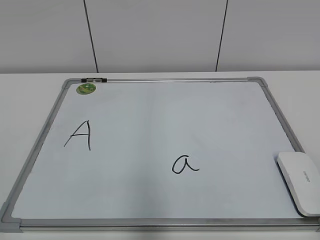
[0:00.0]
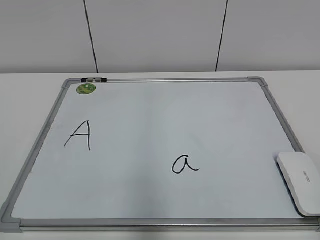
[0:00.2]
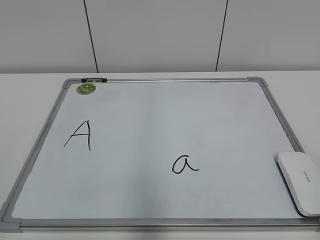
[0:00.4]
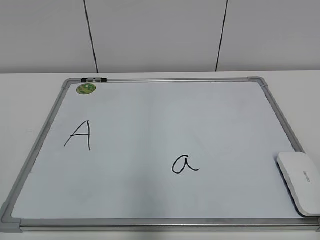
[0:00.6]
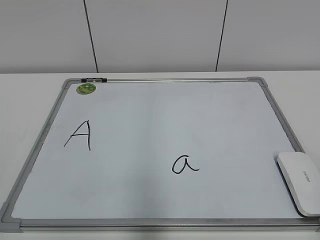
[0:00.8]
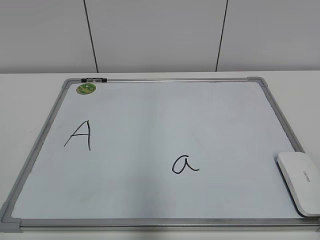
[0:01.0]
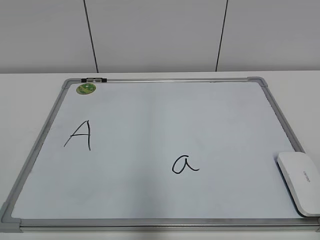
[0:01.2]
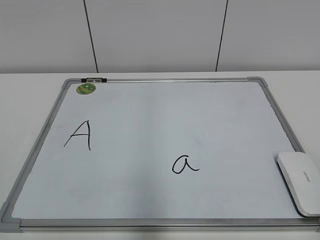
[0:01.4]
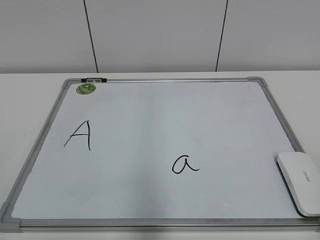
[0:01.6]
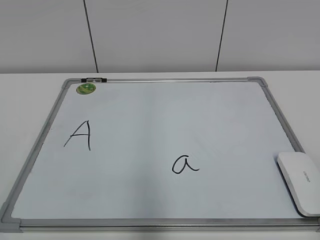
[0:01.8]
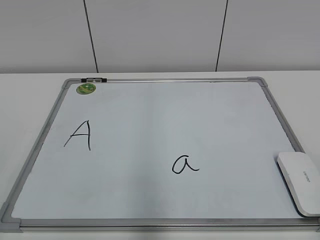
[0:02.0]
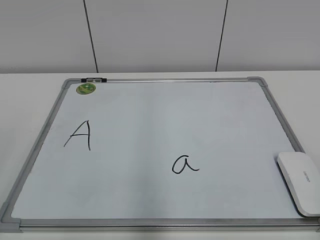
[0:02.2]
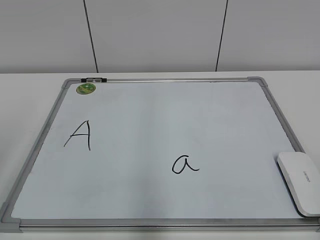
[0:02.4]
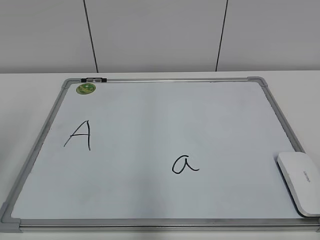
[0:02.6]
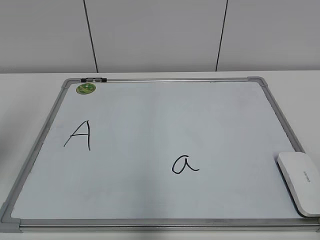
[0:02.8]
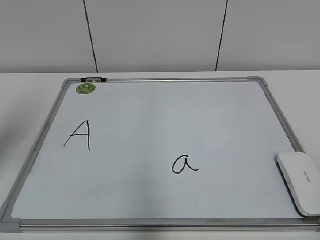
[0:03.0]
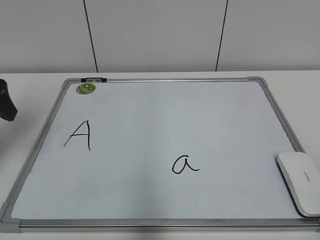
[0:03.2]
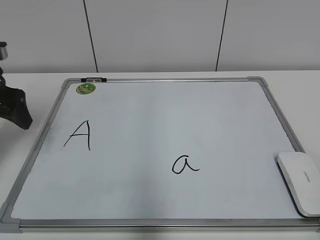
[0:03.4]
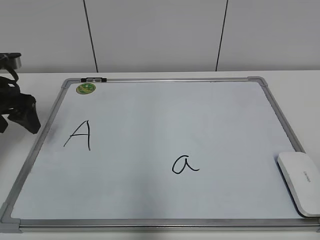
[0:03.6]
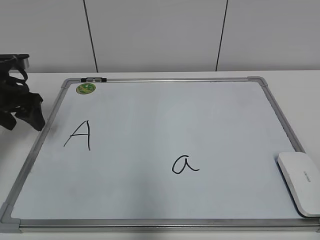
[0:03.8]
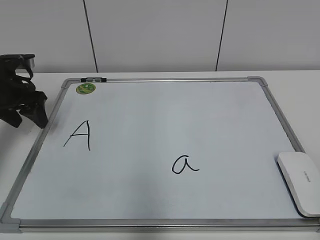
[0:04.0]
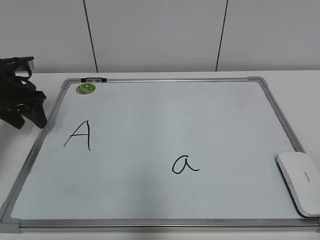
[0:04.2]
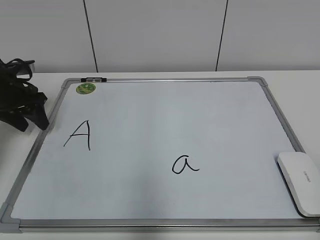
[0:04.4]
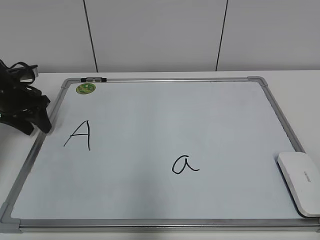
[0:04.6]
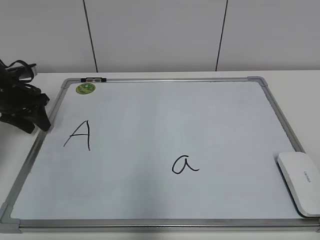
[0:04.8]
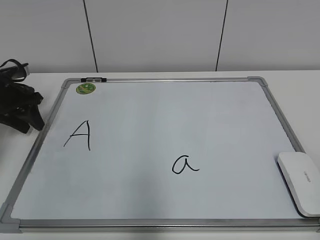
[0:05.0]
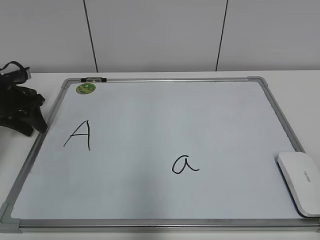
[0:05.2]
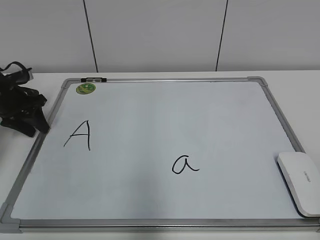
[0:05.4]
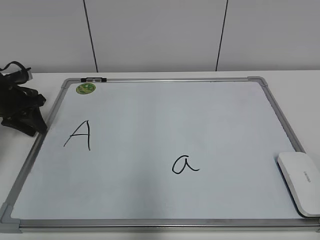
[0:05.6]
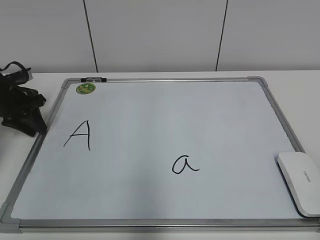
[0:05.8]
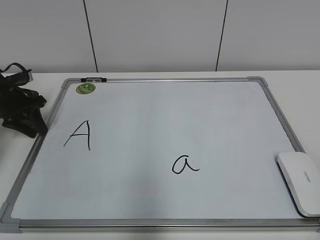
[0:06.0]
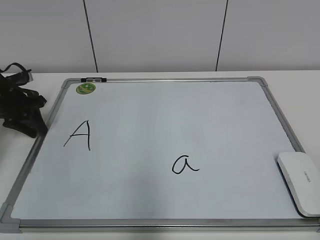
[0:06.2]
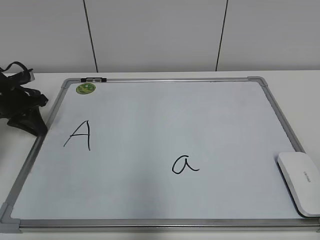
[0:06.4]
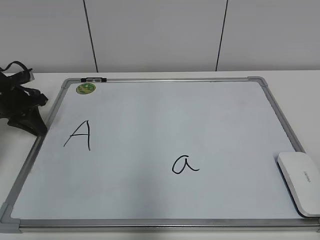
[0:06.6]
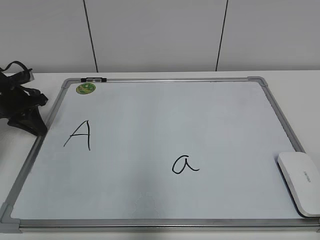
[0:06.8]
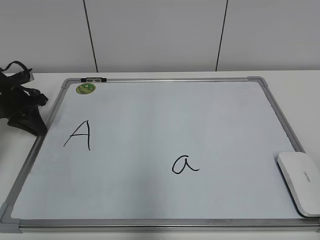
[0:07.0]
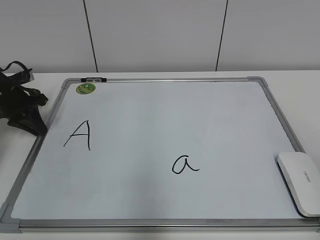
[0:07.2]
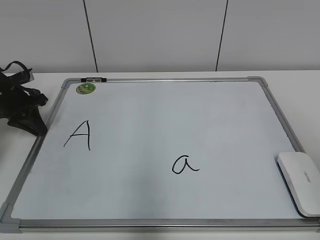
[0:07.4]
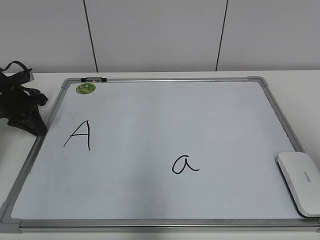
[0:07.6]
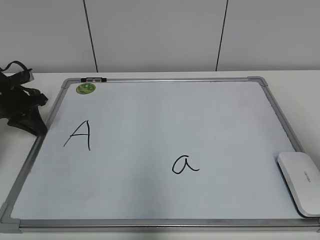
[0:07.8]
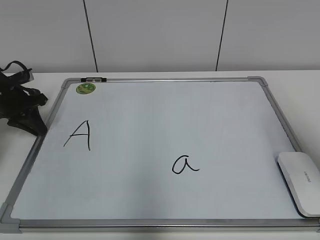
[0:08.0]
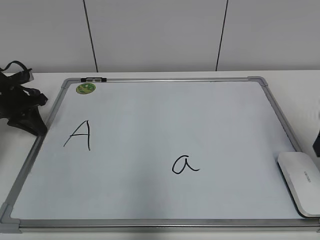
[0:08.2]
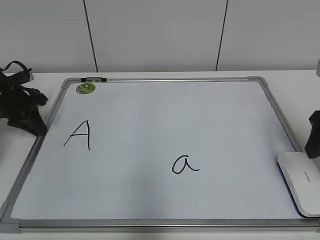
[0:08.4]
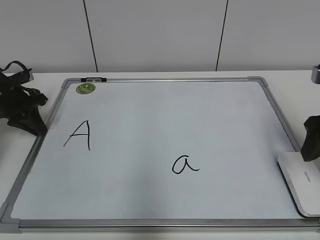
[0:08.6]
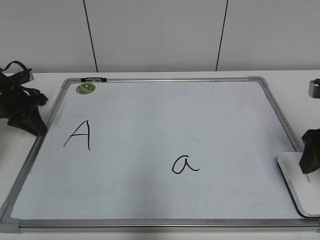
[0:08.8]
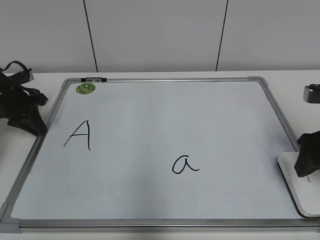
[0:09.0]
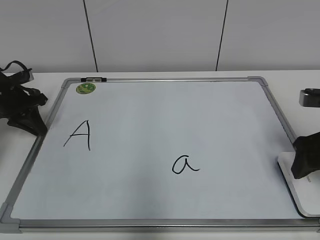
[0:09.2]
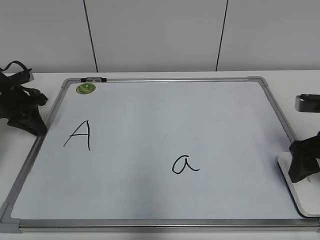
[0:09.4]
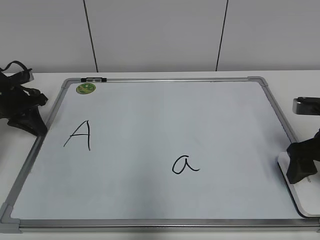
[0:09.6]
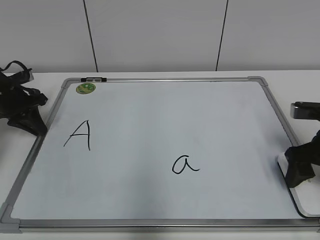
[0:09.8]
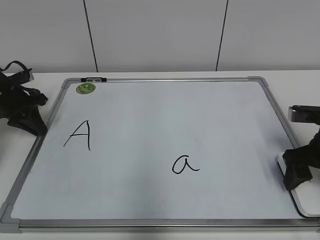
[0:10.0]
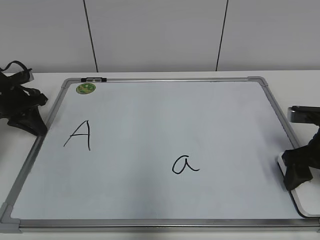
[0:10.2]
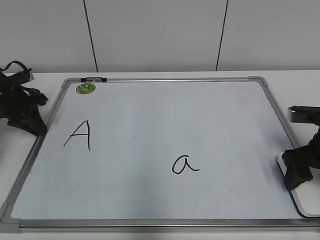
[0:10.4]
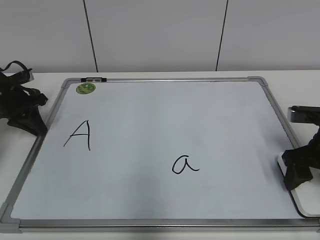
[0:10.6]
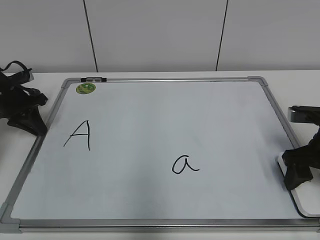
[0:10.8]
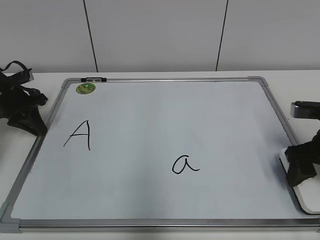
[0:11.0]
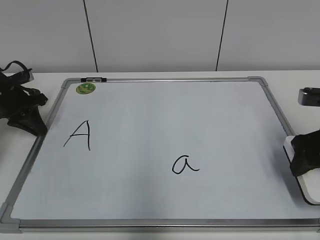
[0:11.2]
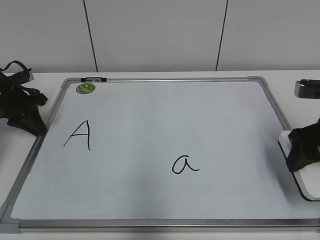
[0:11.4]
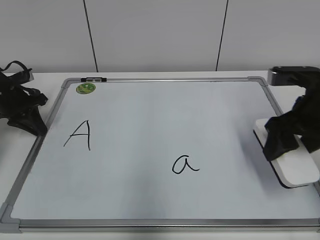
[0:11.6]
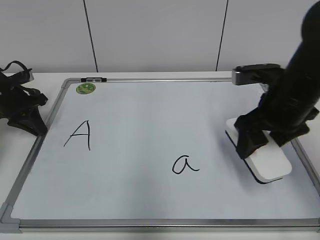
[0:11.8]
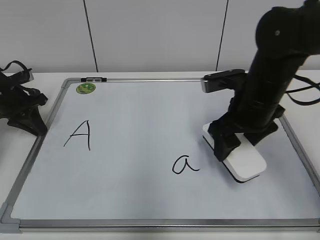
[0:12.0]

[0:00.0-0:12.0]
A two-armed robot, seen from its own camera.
Task of the whole recording: pick up the eraser on the blackboard and erase the letter "a".
Step, 0:00.0 to 0:07.8: Hold the drawing board steady with your left hand.
Step, 0:08.2 to 0:10.6: Grab the eraser with your right hand.
0:01.6 to 0:03.0: The left gripper heads forward, covering approximately 25 cm, and opens its fingers.
0:03.0 to 0:04.4: The left gripper is displaced forward and downward by some 20 cm.
0:04.4 to 0:06.0: There are only small adjustments of the grippers.
0:07.6 to 0:09.0: The right gripper is displaced downward and forward by some 20 cm.
0:09.0 to 0:10.4: The right gripper goes some 5 cm downward.
0:10.4 to 0:12.0: The right gripper moves to the left and upward, approximately 15 cm.

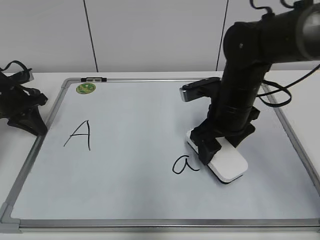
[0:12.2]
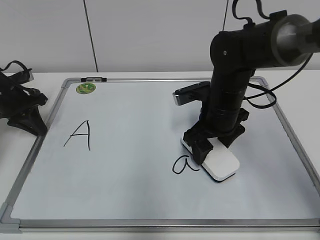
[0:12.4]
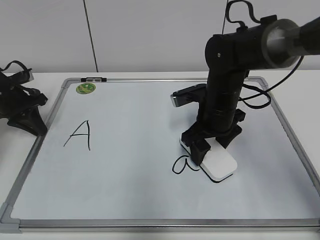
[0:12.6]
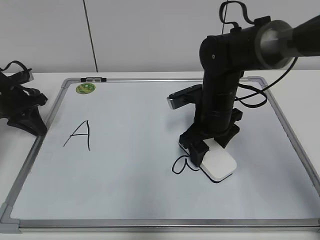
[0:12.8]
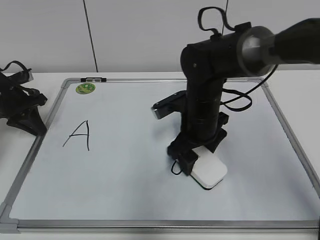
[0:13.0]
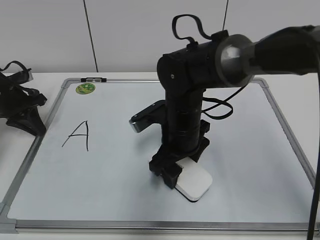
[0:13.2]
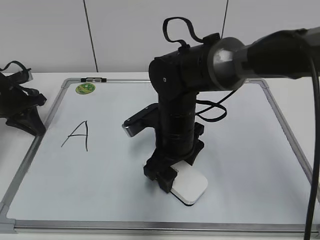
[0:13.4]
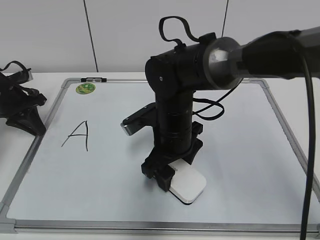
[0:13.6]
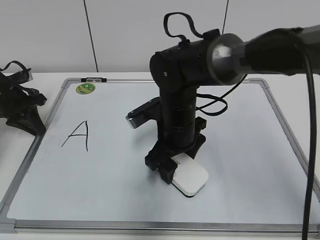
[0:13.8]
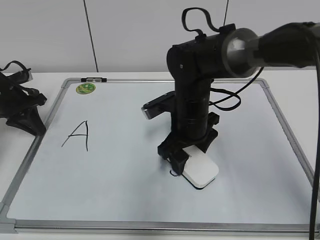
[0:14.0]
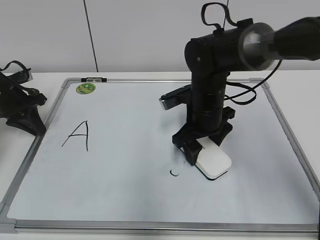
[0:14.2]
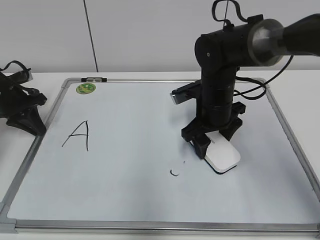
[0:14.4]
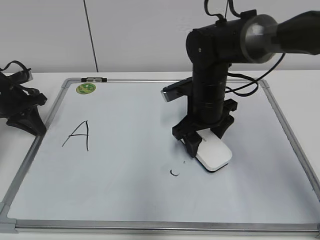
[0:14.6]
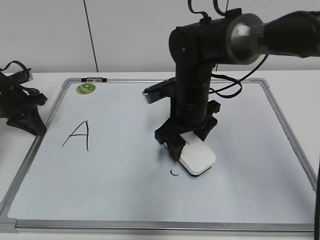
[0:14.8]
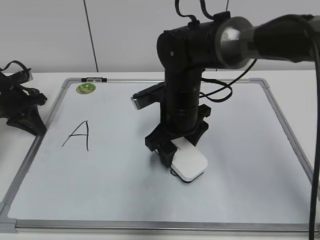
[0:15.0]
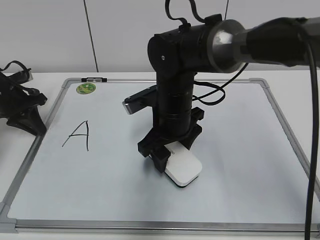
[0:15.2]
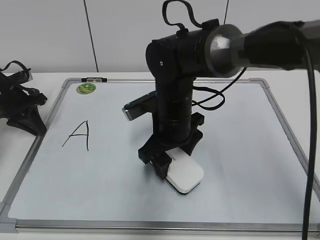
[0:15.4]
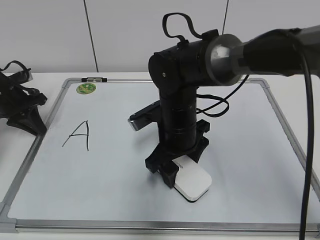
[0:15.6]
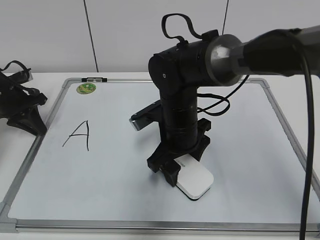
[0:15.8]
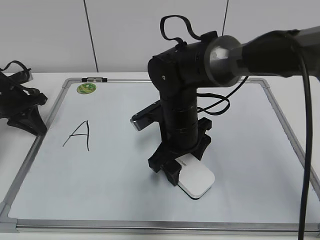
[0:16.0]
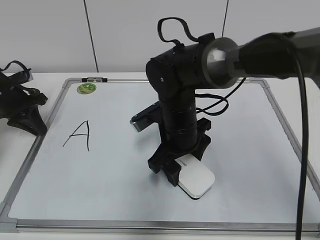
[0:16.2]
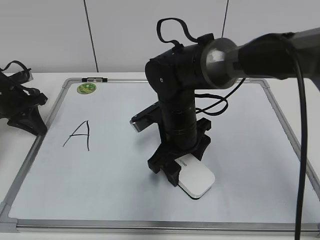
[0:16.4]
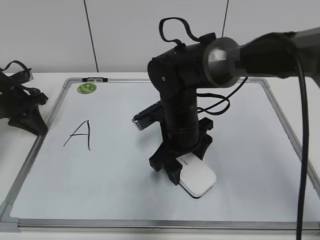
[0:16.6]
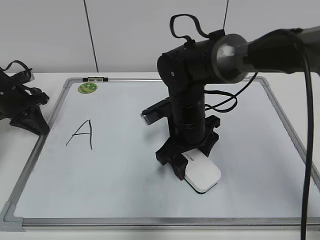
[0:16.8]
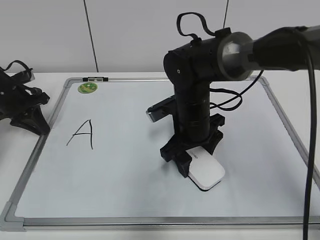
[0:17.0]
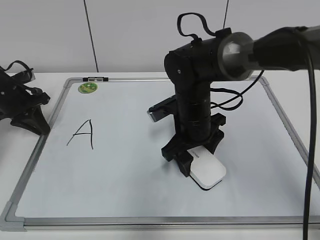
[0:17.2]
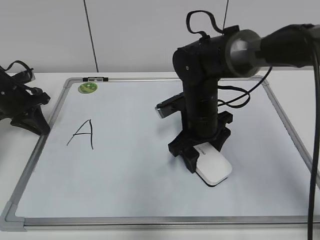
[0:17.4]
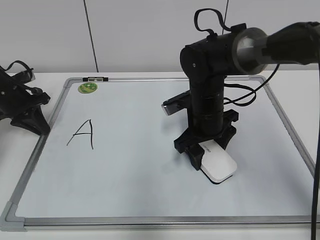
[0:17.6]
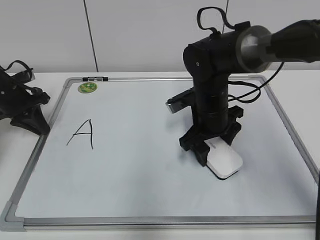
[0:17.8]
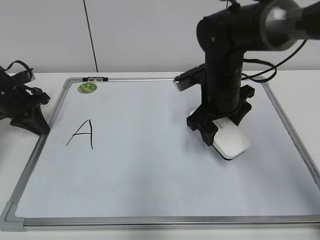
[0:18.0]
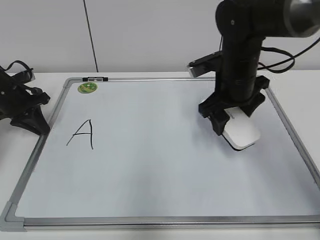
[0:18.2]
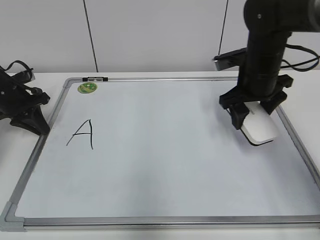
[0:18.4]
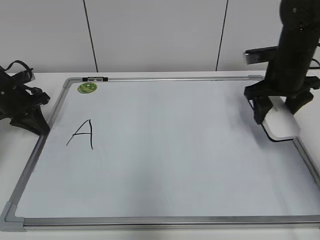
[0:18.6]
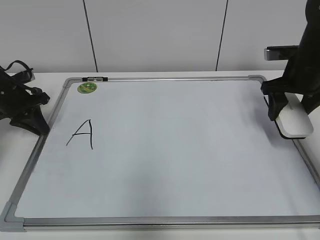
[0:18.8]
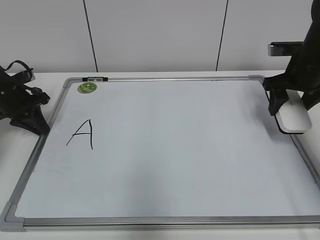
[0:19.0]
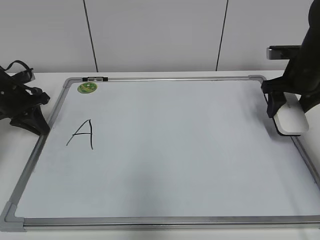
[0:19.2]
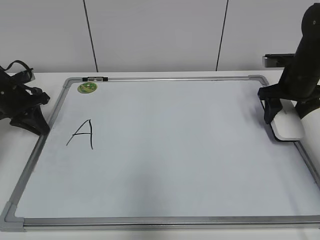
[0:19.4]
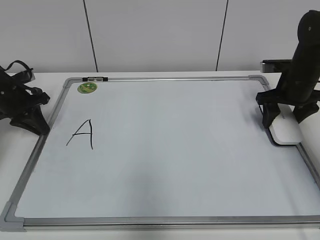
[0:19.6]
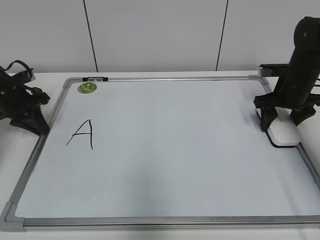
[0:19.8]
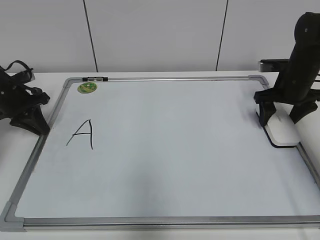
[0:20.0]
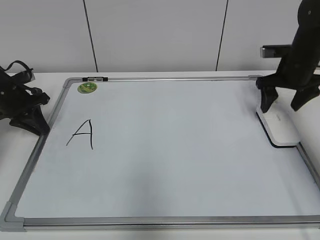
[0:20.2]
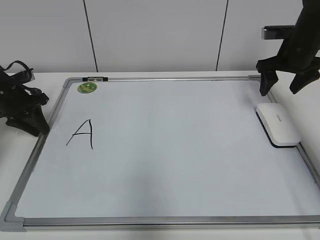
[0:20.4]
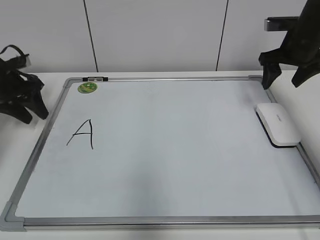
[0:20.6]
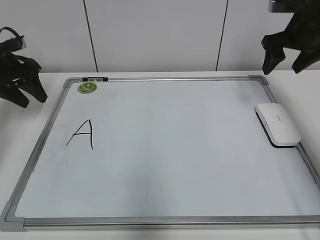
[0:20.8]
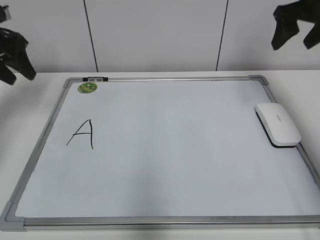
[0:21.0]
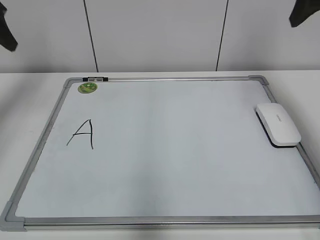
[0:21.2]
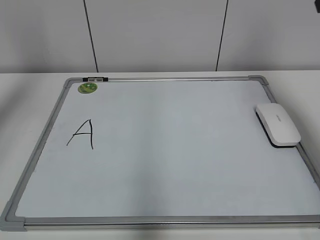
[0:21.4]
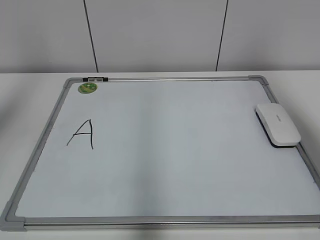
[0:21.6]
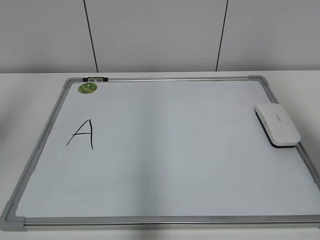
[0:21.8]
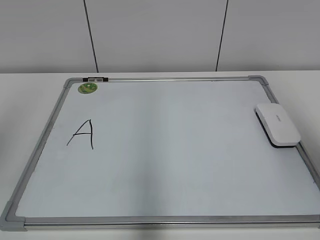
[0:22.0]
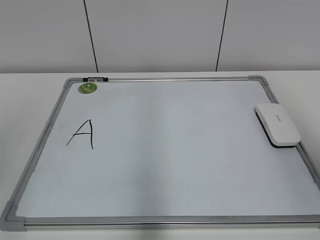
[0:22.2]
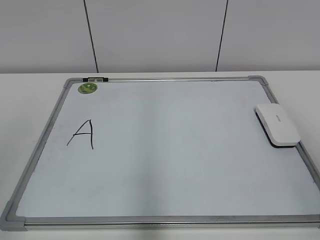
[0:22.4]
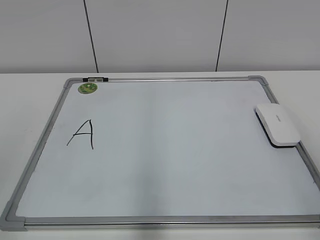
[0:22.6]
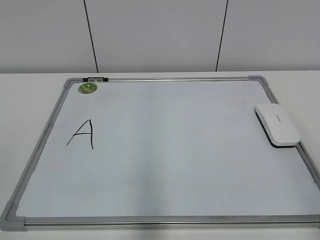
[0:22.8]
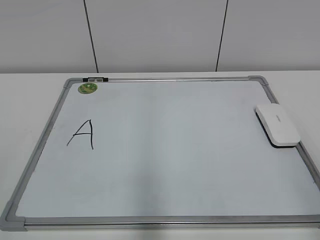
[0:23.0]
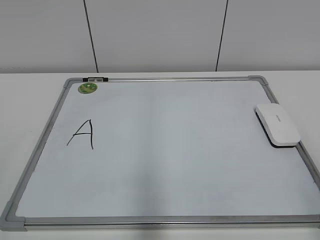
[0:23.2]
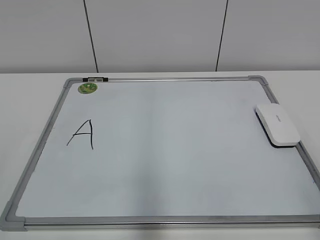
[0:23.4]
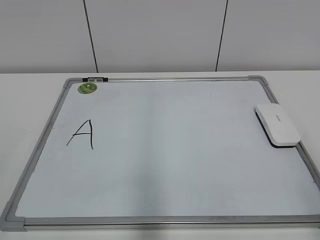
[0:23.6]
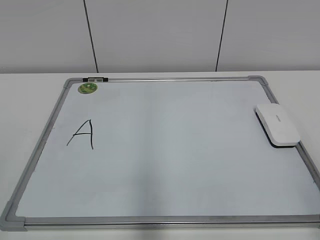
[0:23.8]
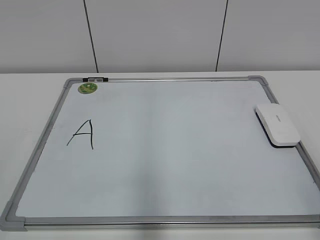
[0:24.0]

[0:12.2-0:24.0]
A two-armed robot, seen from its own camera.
Task of the whole recording: pick up the eraser on the blackboard and erase the letter "a".
Step, 0:12.2 to 0:17.6: Erase the letter a with your right hand.
Step, 0:17.8 to 0:19.8: Put down the eraser with your right hand.
0:12.2 to 0:13.6: The right gripper moves to the left, about 10 cm.
0:13.6 to 0:15.2: The right gripper travels to the right and back again, roughly 10 cm each way.
0:16.6 to 0:18.2: The right gripper moves to the right and upward, about 10 cm.
0:18.2 to 0:19.6: The right gripper heads to the right, covering approximately 15 cm.
0:19.6 to 0:21.0: The grippers both shift upward by approximately 15 cm. The left gripper opens up.
0:21.0 to 0:22.6: The grippers both shift backward by about 40 cm.
